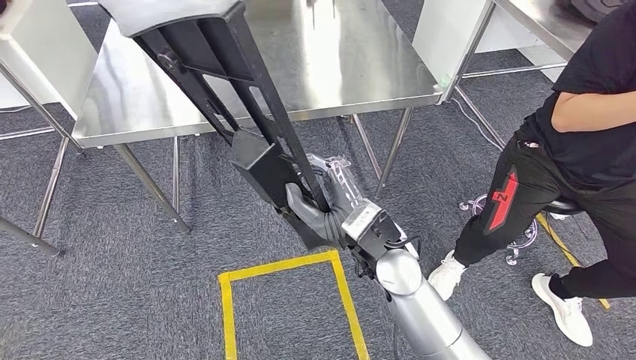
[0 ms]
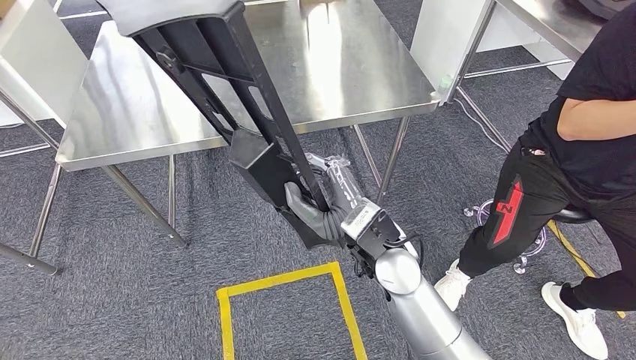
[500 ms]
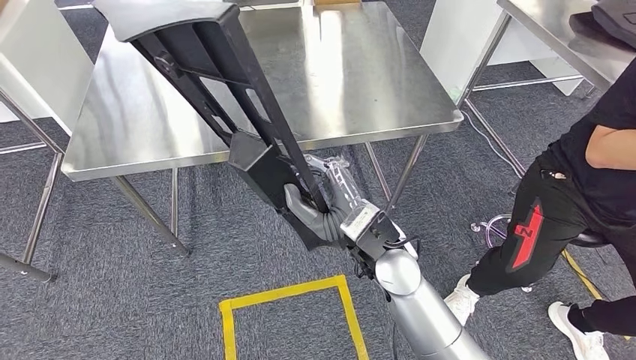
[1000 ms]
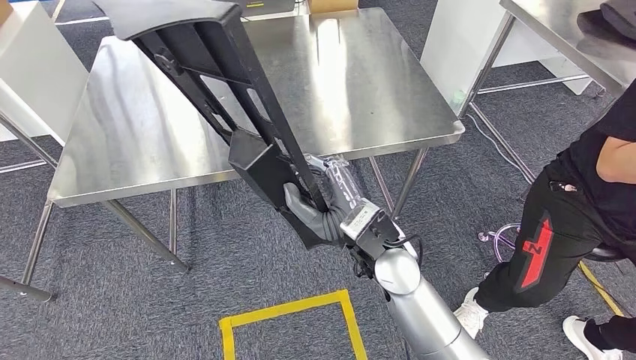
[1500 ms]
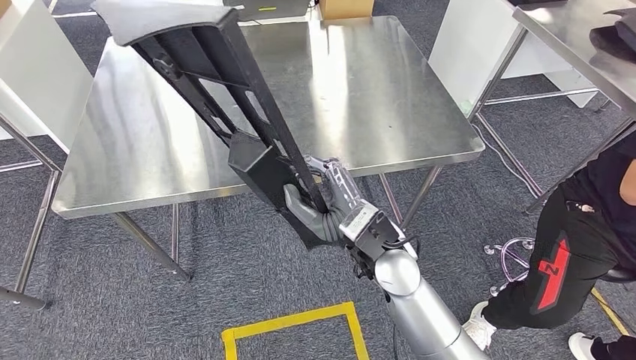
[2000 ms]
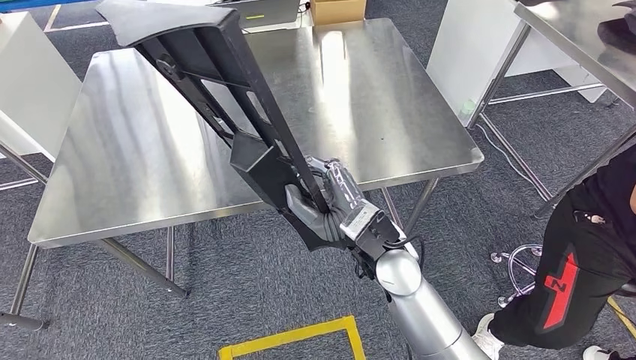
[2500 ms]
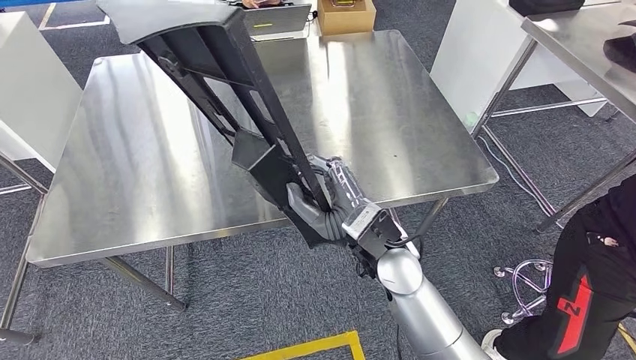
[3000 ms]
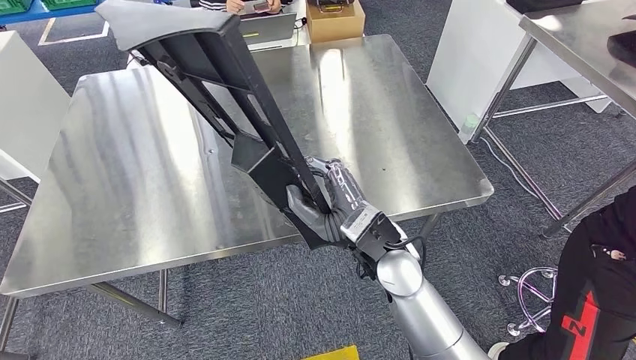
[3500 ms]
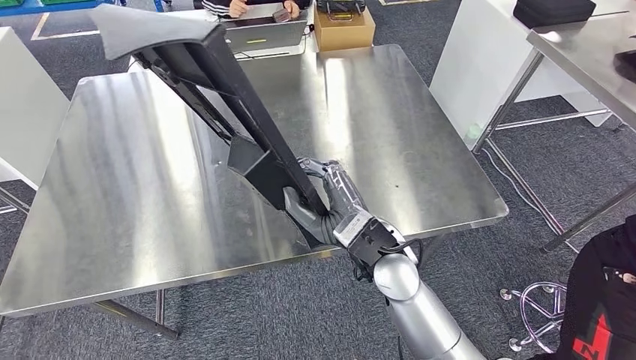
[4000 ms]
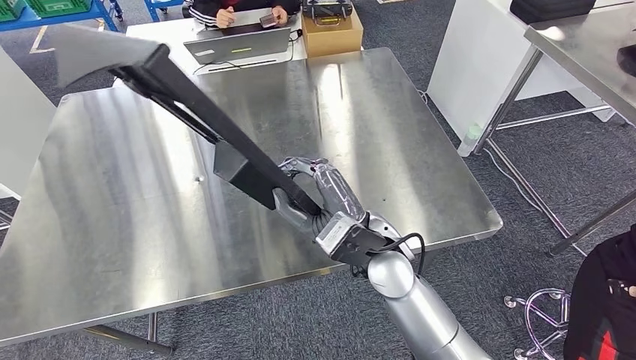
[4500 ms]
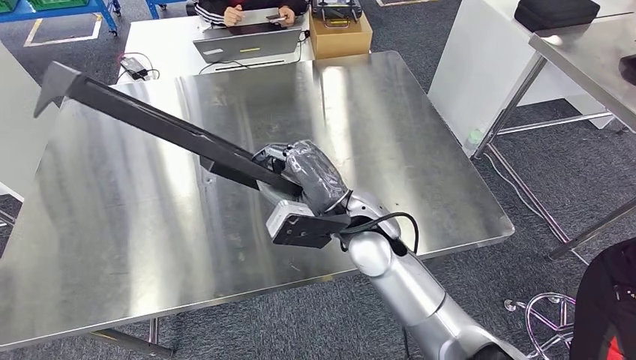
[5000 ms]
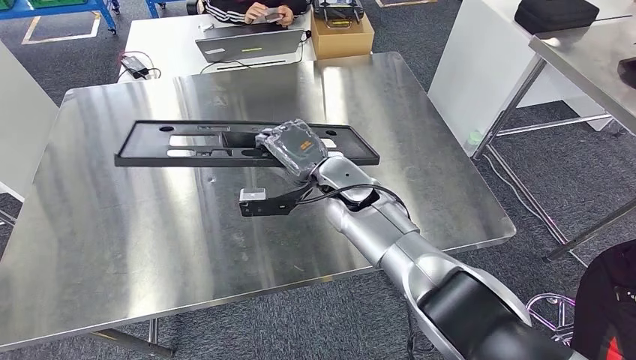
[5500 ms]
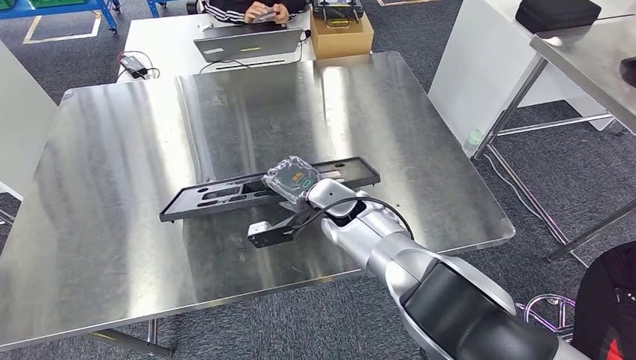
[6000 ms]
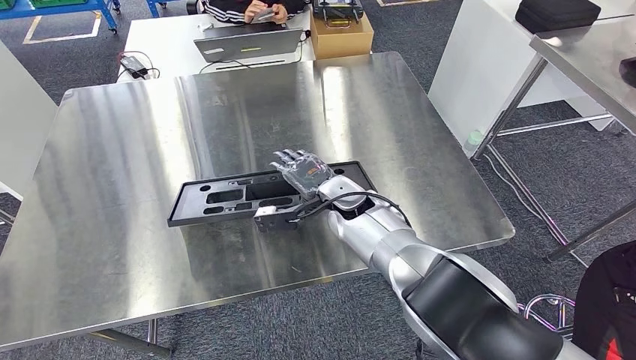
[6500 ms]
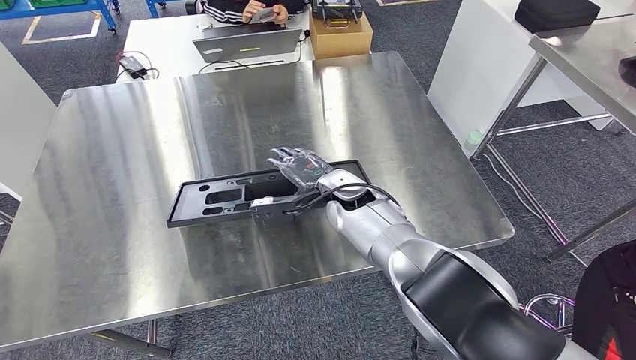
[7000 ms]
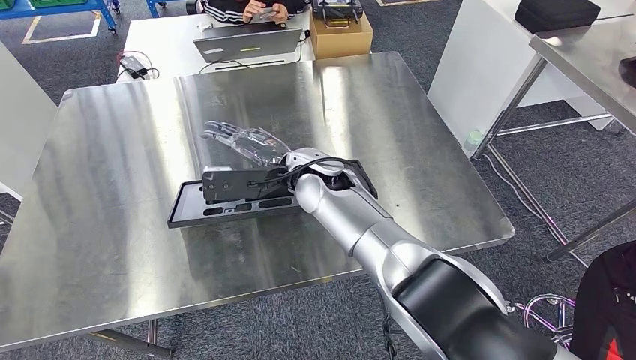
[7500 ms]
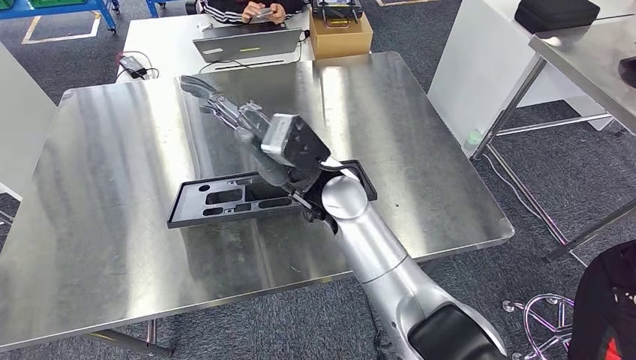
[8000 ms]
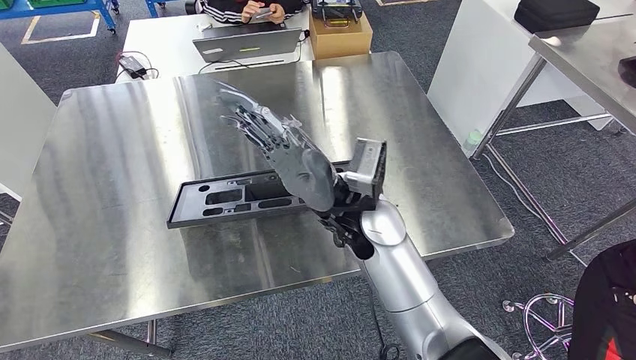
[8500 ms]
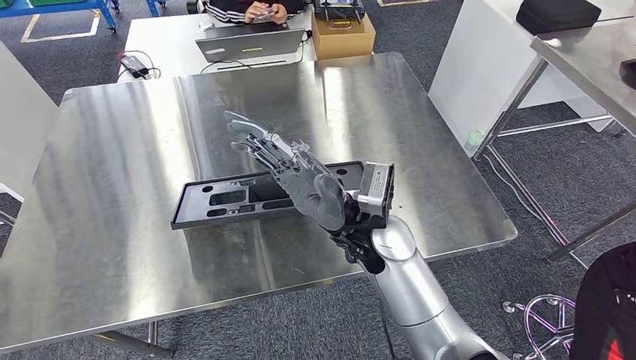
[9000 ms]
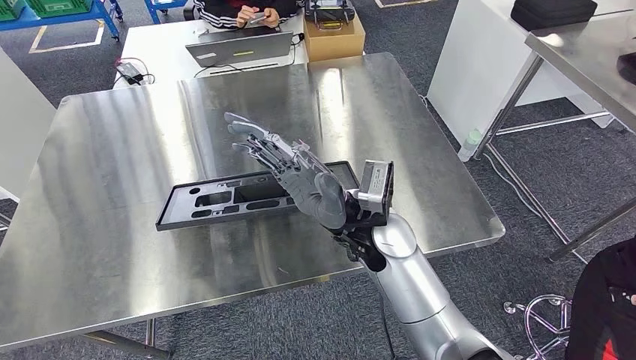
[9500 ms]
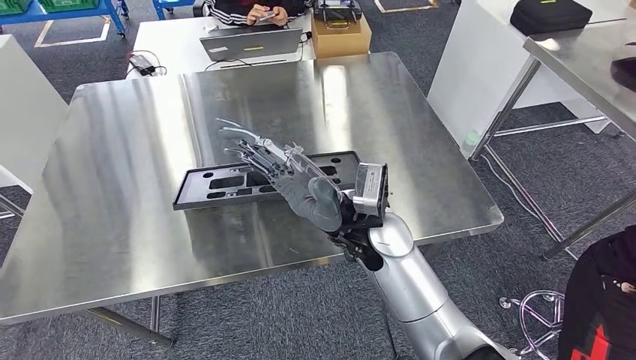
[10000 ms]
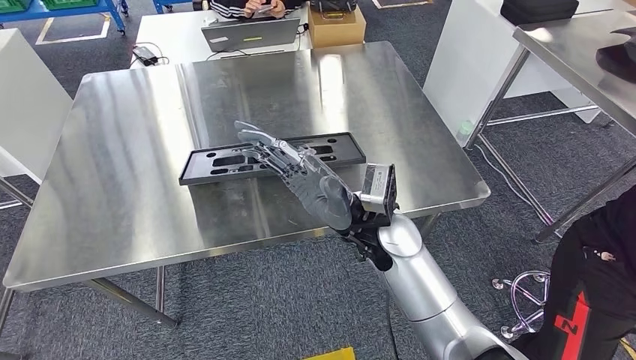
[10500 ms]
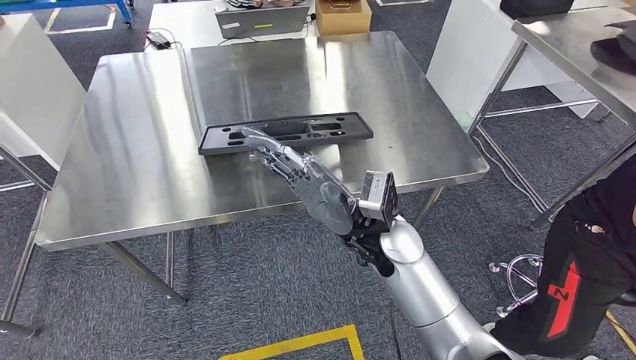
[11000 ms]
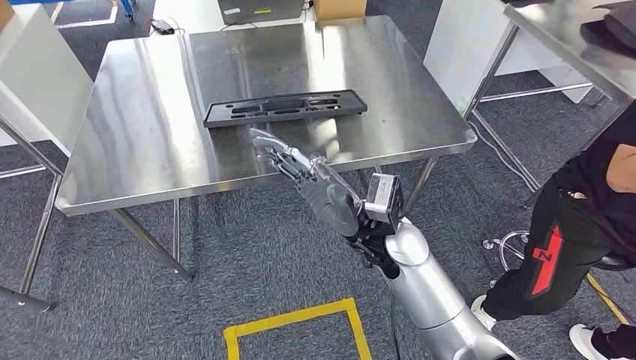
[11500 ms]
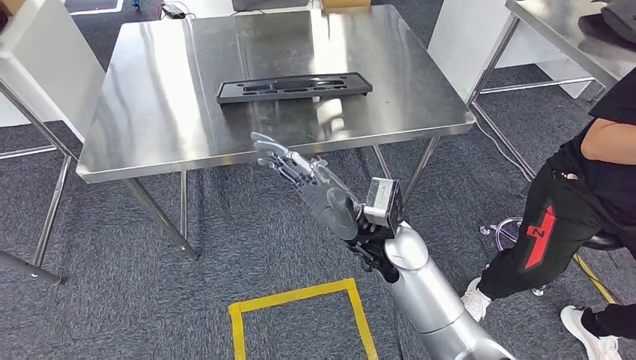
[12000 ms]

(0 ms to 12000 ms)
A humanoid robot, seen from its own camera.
6000 ms - 8000 ms: The right hand goes about 15 cm upward and backward.

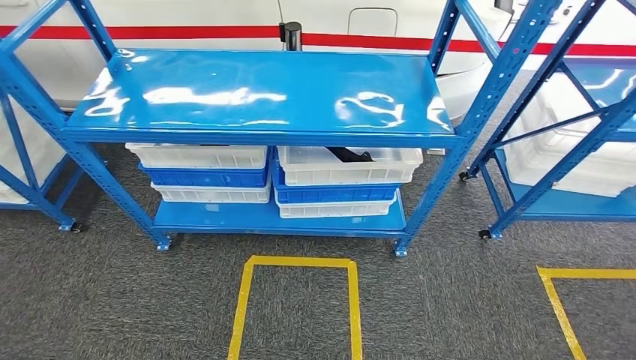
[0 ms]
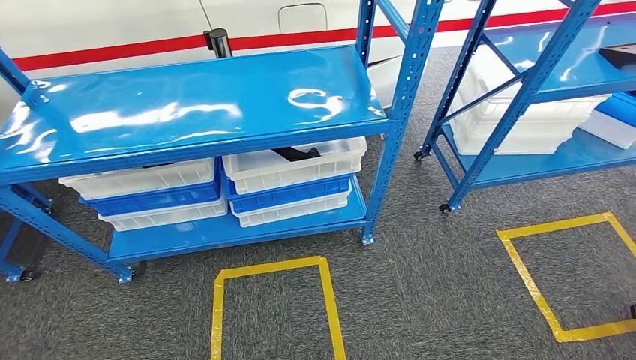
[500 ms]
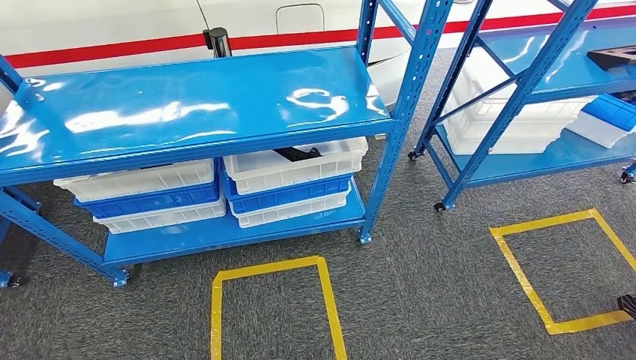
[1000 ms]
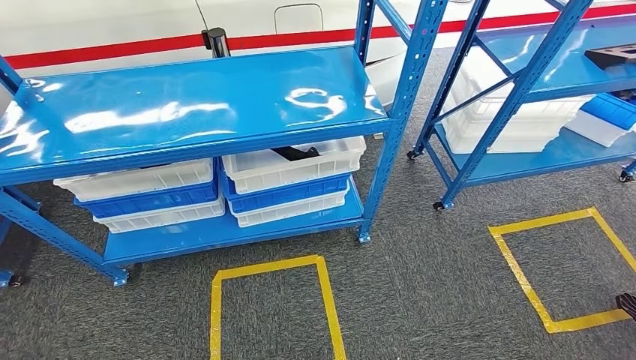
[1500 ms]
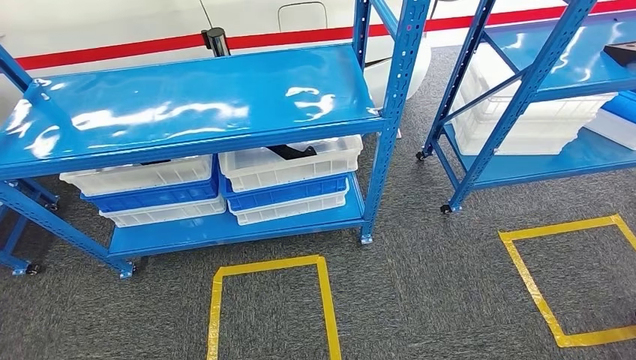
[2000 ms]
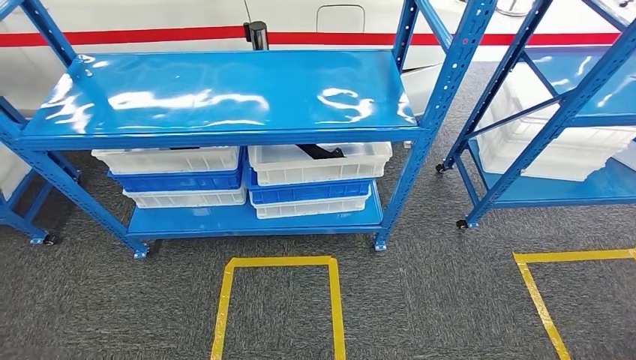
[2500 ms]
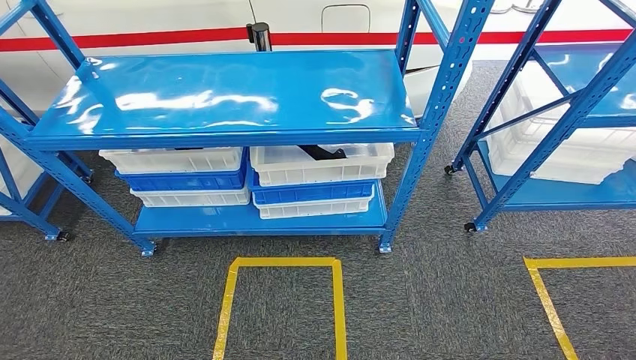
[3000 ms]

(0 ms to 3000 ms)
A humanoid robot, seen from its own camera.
Step, 0 ms - 3000 ms: Return to the initial position at the shelf.
